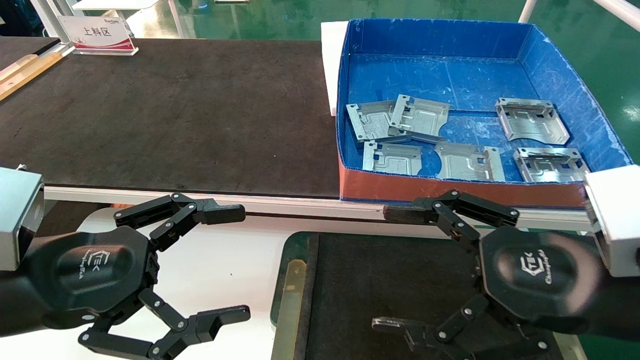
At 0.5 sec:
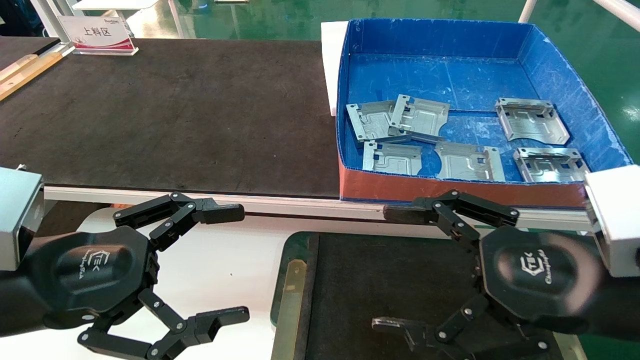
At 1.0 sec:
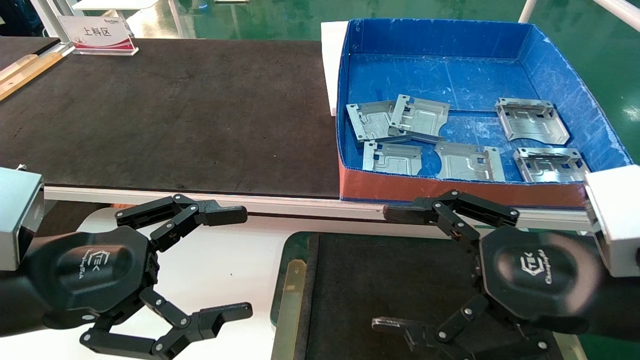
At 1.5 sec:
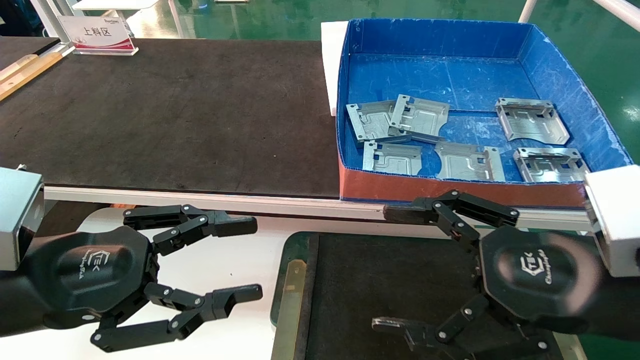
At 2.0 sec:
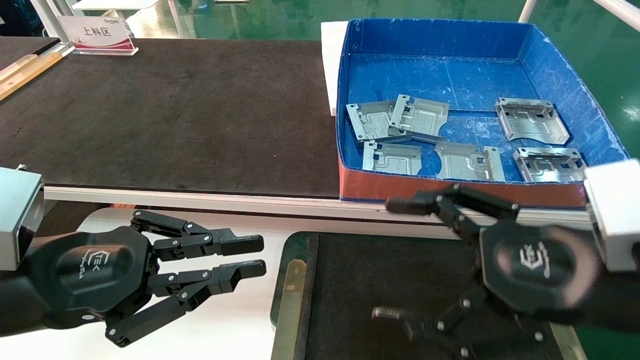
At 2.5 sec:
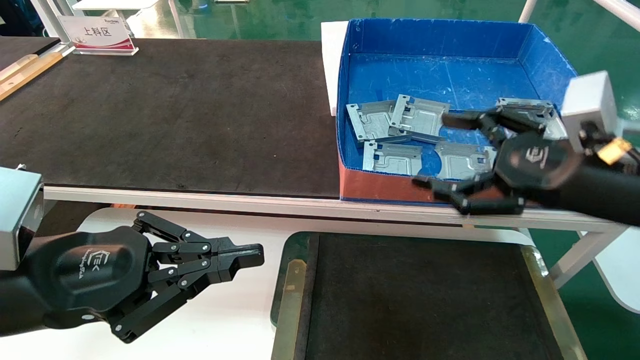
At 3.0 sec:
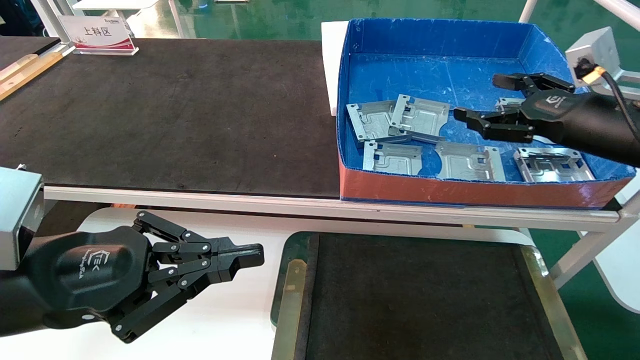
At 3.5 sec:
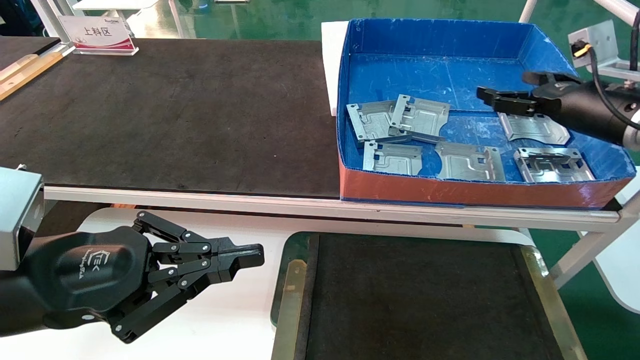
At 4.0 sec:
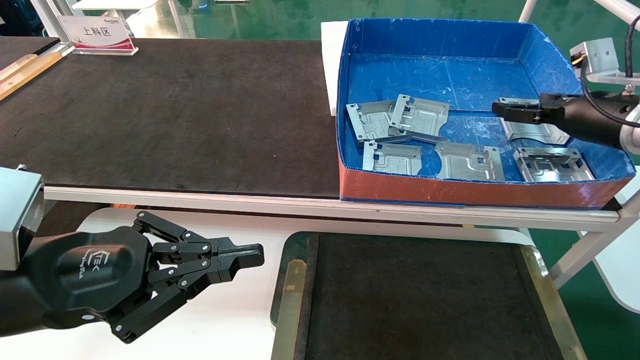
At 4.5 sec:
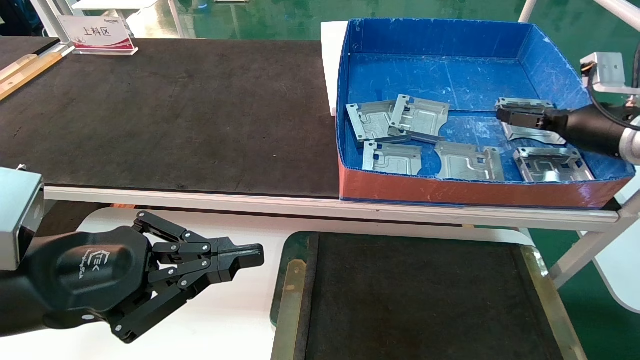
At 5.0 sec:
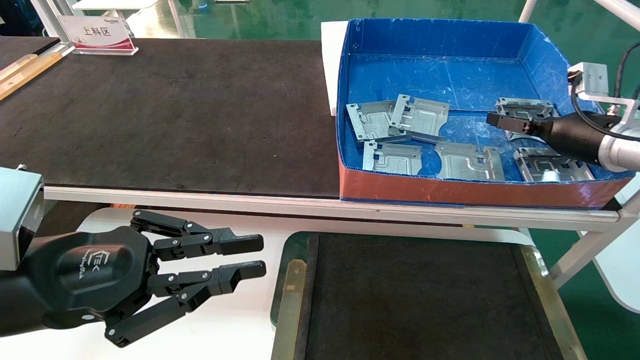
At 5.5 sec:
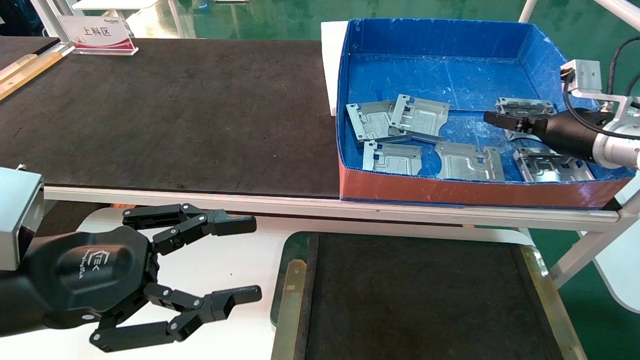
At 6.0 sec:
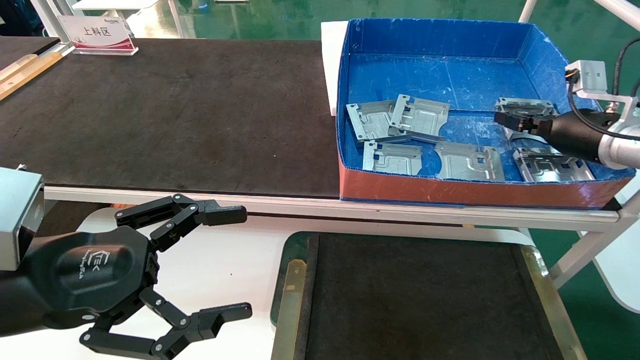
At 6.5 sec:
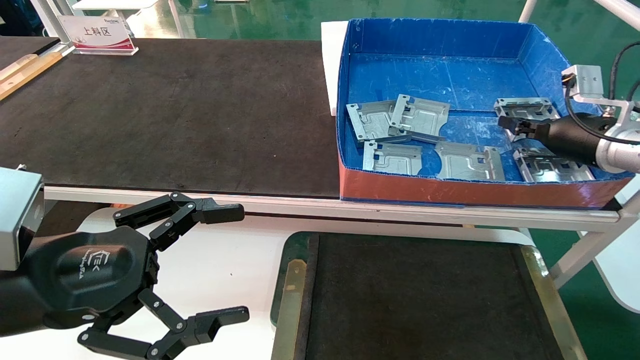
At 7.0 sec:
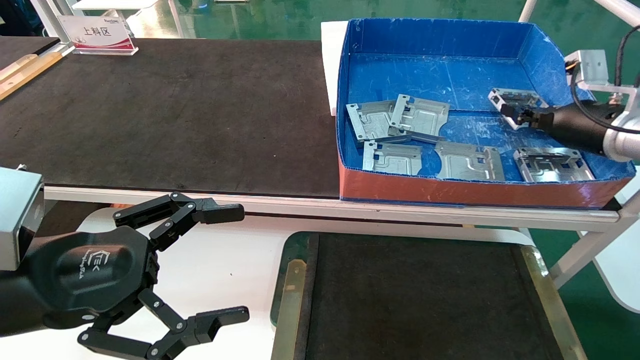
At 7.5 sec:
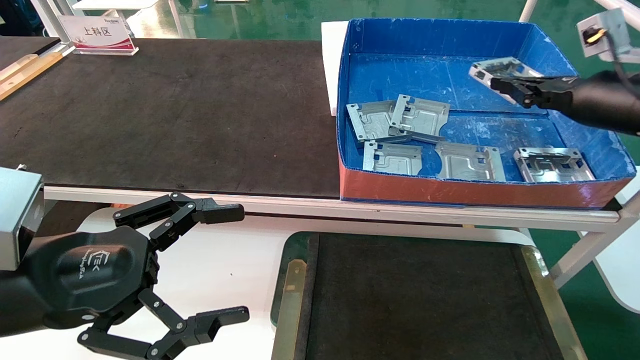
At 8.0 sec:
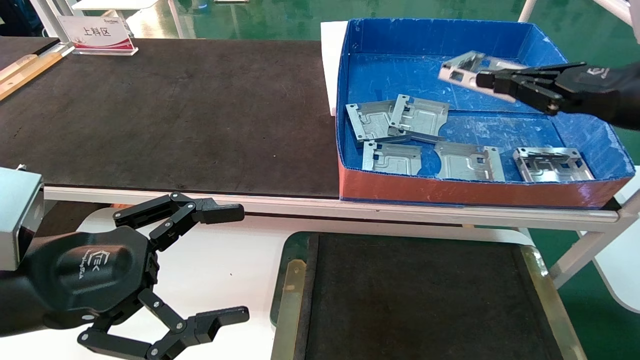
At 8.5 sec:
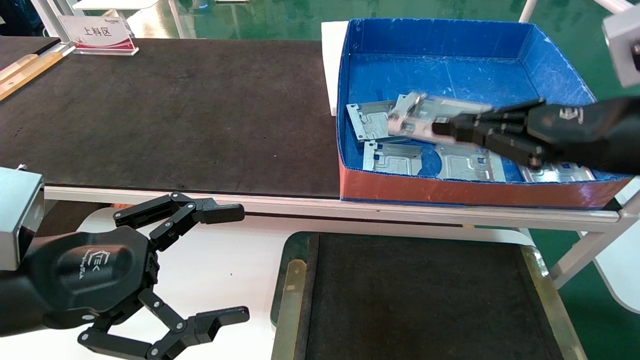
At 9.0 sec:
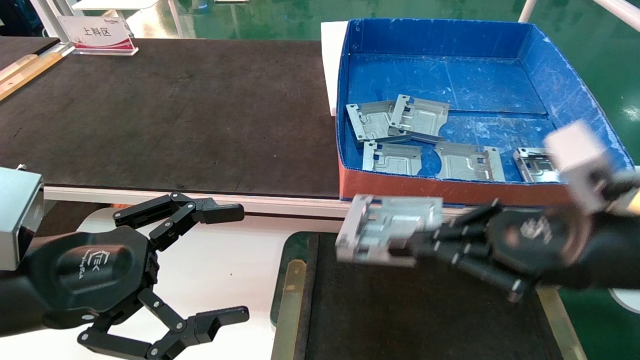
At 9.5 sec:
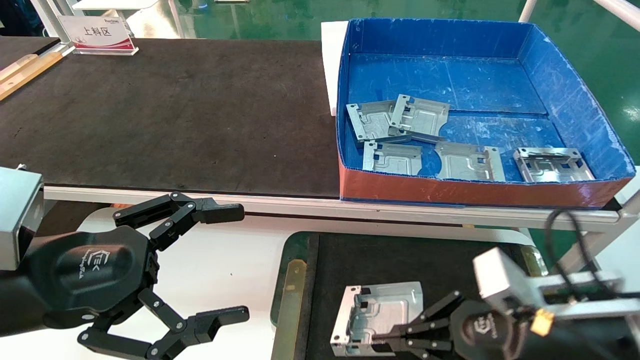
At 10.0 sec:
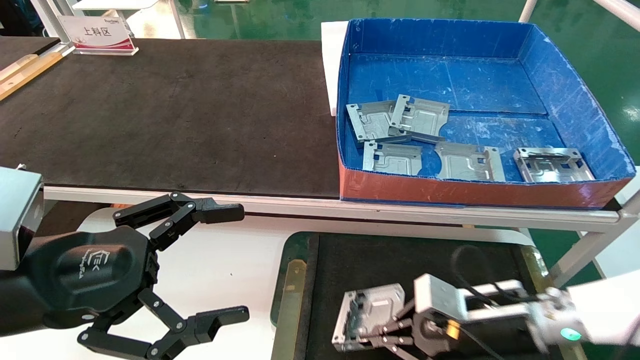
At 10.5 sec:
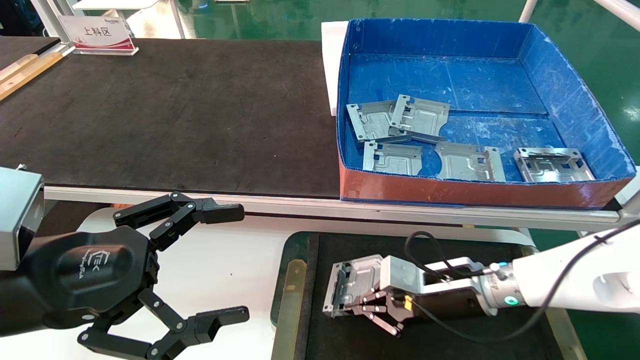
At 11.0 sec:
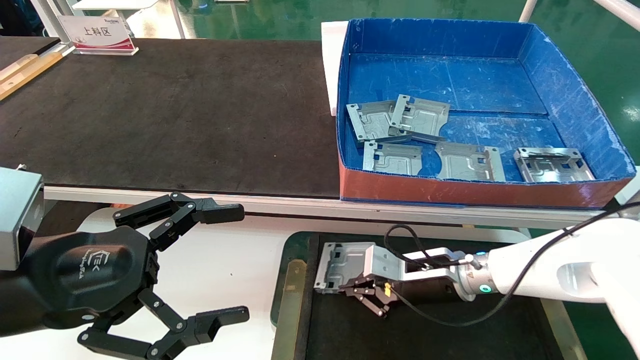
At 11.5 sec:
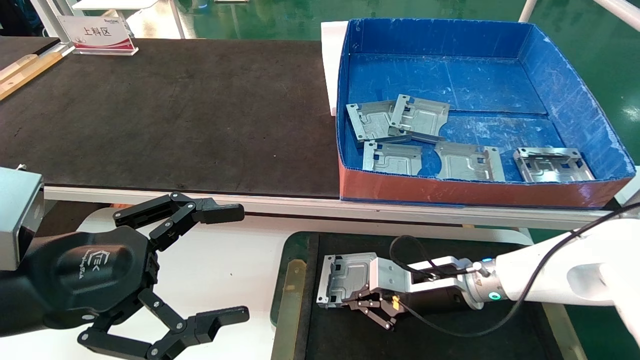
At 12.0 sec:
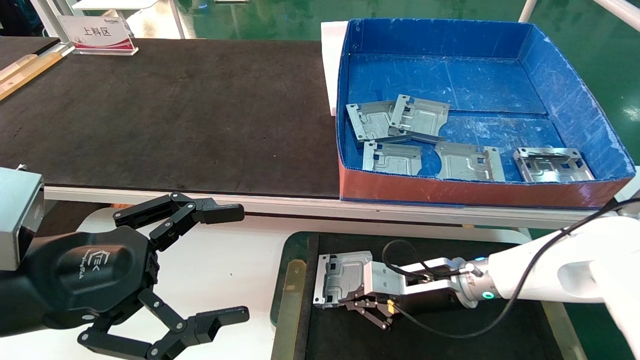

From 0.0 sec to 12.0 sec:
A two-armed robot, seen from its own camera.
Task of the whole recording: pick up parts and place them into a black container.
Step, from 2.5 sec to 6.5 sec: Pick up the hard drive bracket from the feeding area.
From 0.0 sec to 2.0 sec: The left gripper closes its fingers.
From 2.0 sec to 4.0 sec: The right gripper goes some 25 cm forward and to the right.
From 4.0 sec to 6.0 sec: The left gripper opens, while the right gripper closes up.
From 6.0 sec to 8.0 sec: The right gripper travels backward and upward by approximately 15 cm, and closes its fingers.
From 8.0 sec to 10.0 sec: The right gripper shifts approximately 30 cm downward and to the left.
From 10.0 sec to 12.0 sec: The right gripper goes some 10 cm forward and to the left.

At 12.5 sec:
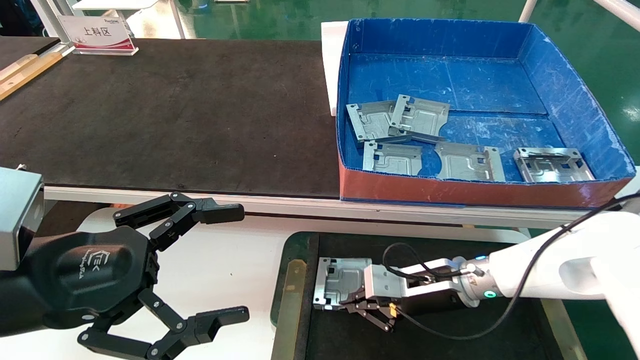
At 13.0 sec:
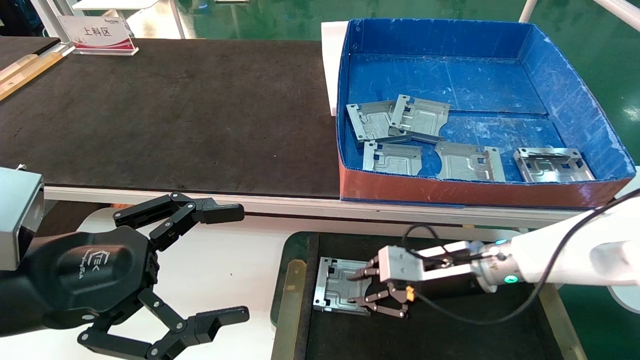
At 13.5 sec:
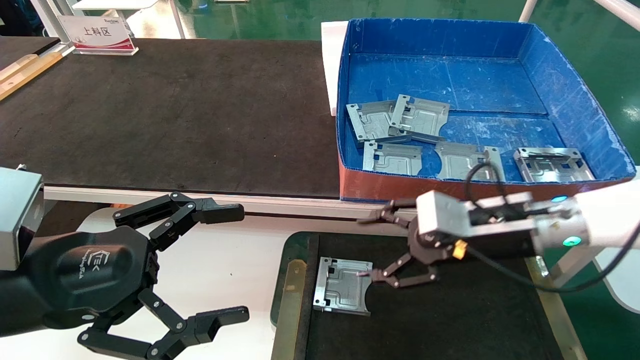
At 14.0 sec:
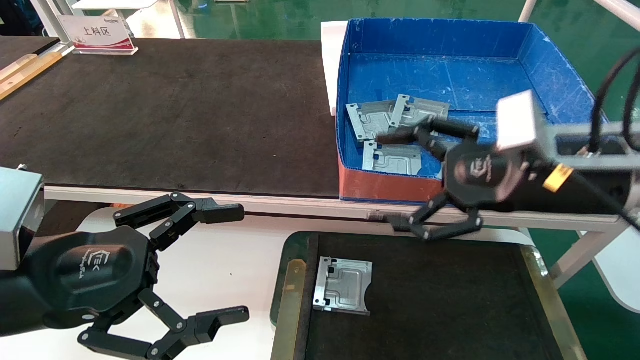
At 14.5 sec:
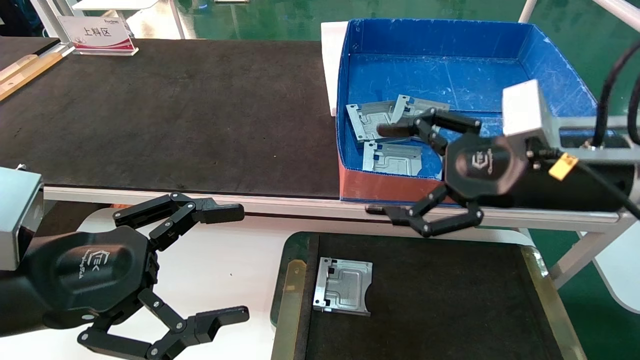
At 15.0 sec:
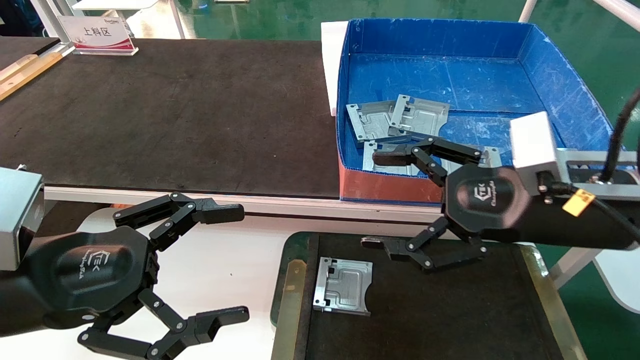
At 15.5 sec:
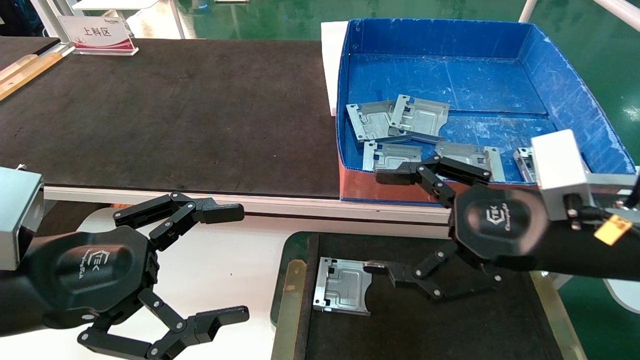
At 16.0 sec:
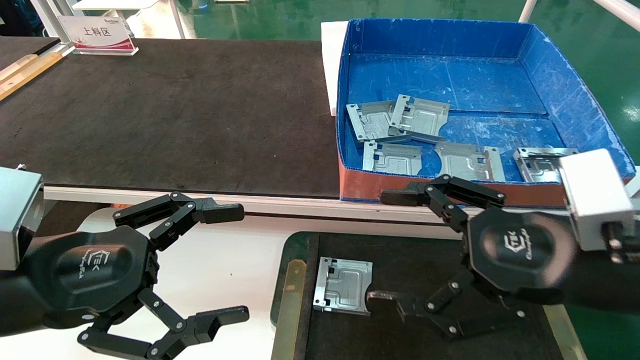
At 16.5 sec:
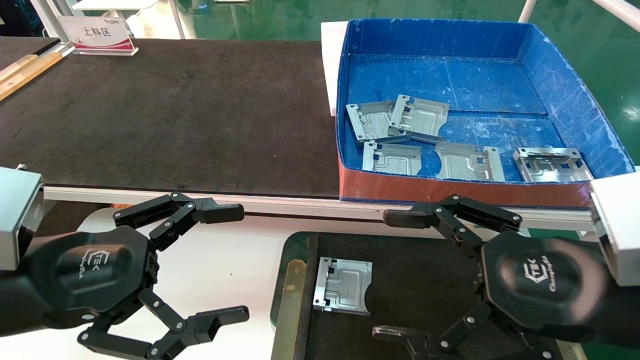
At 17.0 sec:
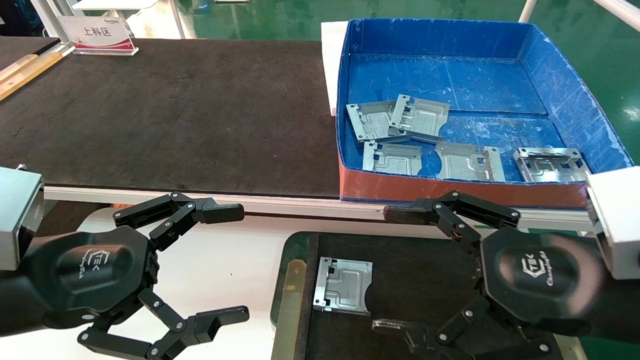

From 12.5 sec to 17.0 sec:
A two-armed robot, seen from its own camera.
Task of the whole recording: pick up parts and place them into a black container.
From 12.5 sec to 14.5 sec: The right gripper goes roughly 20 cm upward and backward, and opens.
From 14.5 sec to 17.0 sec: The right gripper goes roughly 10 cm backward.
